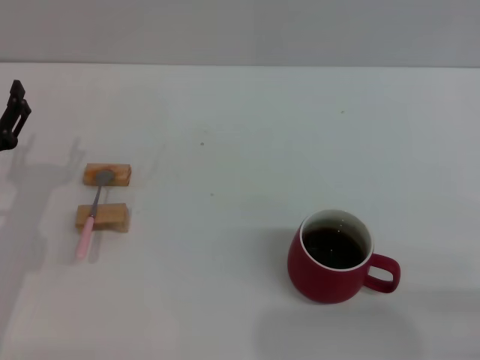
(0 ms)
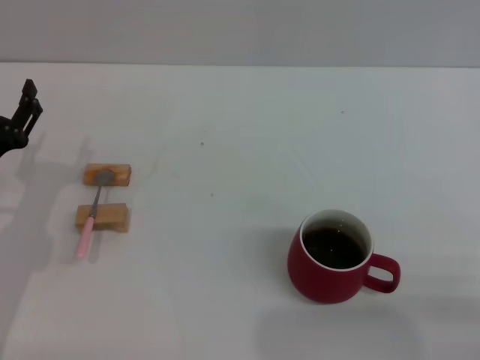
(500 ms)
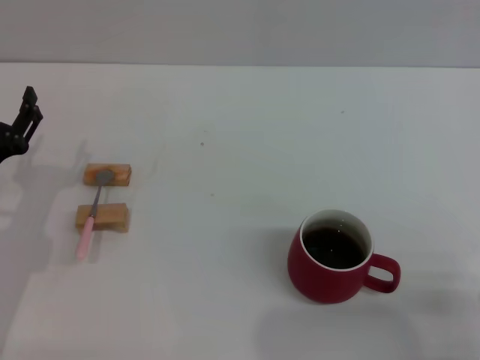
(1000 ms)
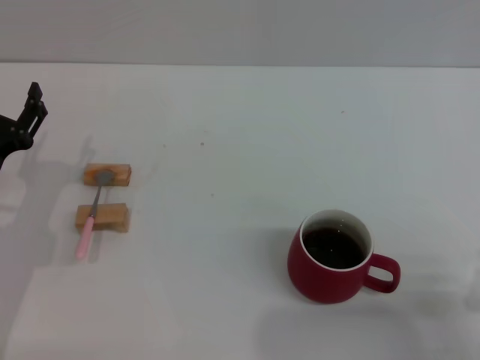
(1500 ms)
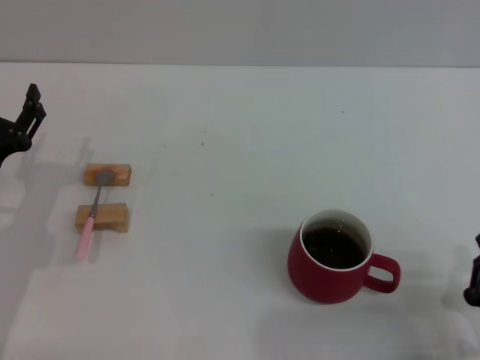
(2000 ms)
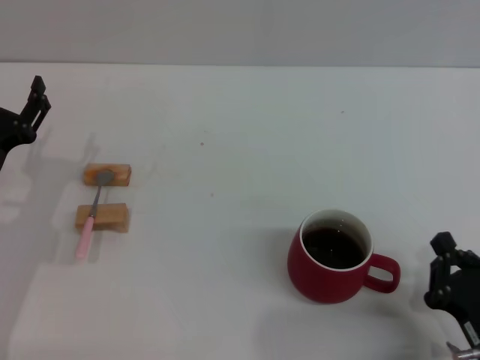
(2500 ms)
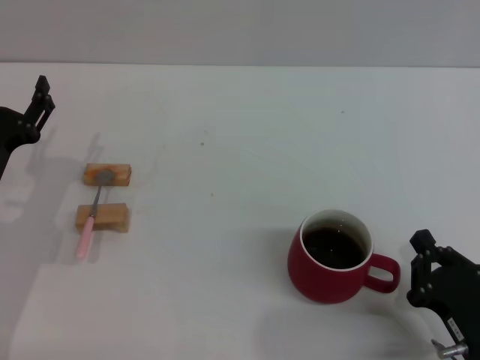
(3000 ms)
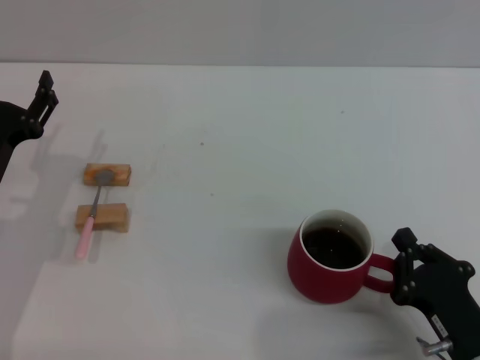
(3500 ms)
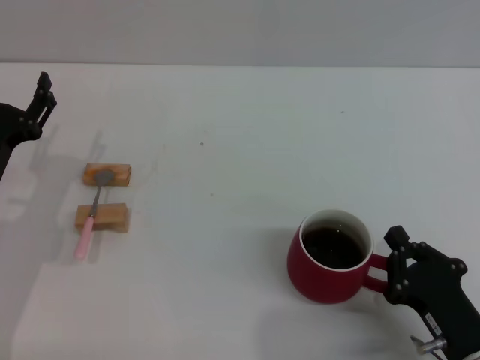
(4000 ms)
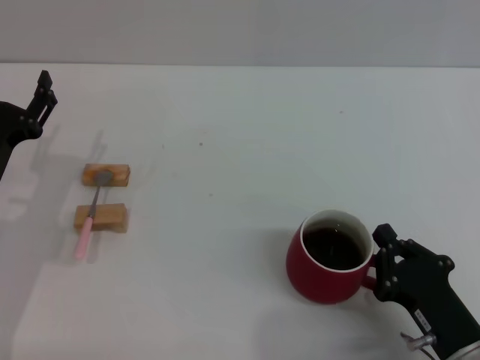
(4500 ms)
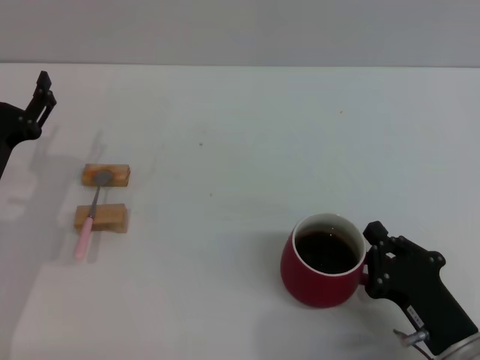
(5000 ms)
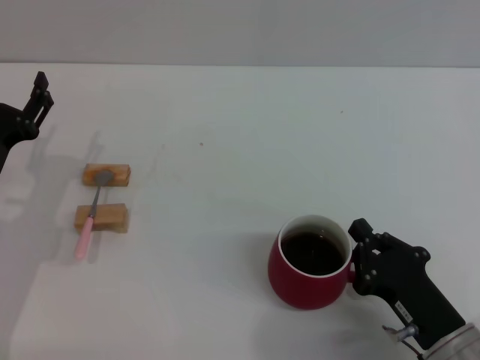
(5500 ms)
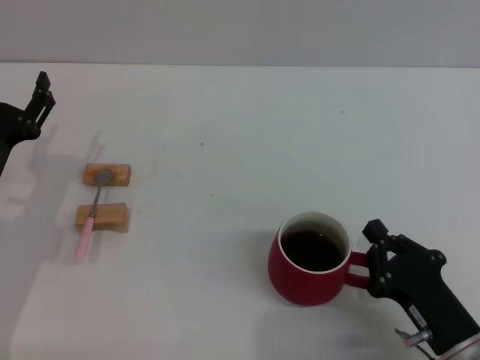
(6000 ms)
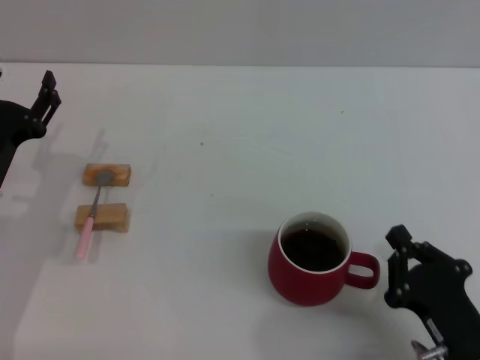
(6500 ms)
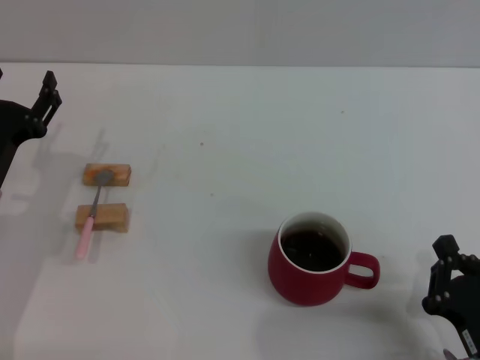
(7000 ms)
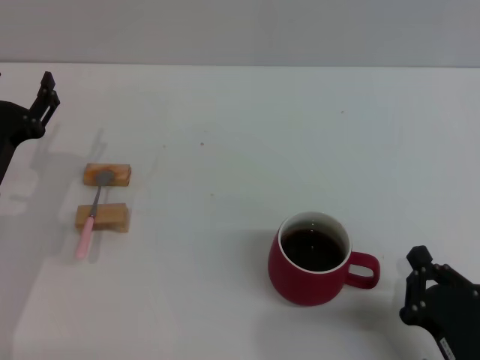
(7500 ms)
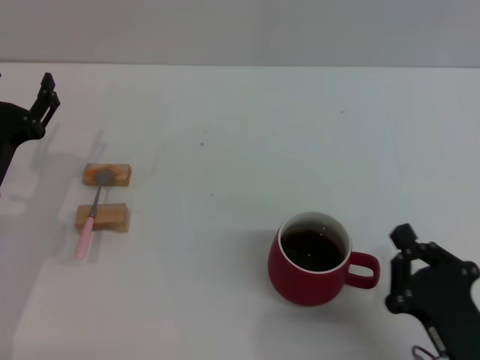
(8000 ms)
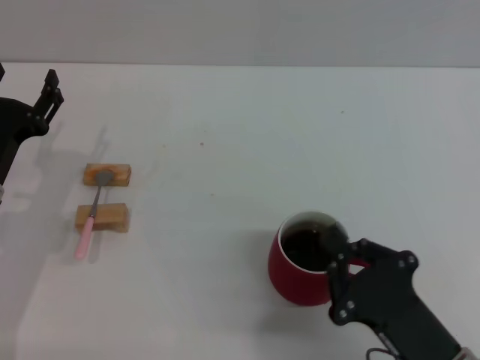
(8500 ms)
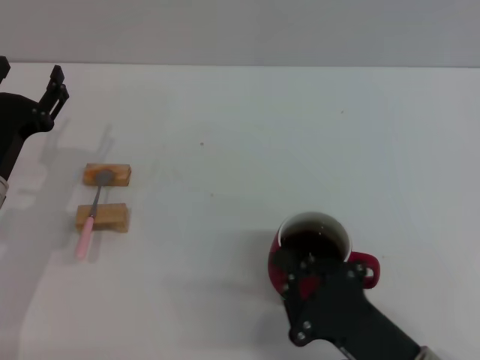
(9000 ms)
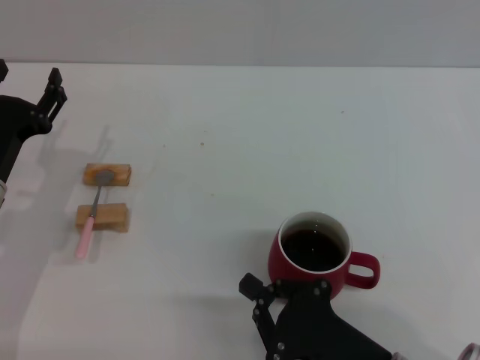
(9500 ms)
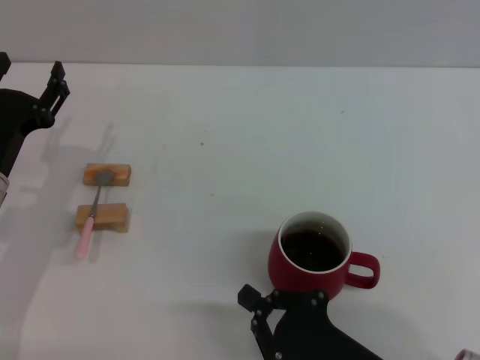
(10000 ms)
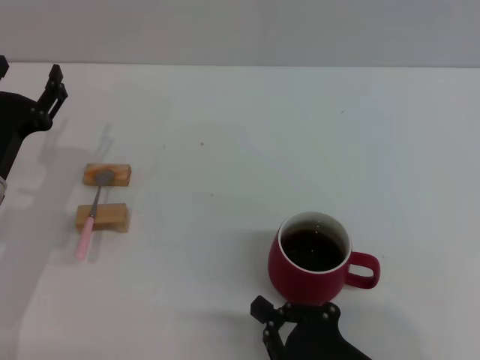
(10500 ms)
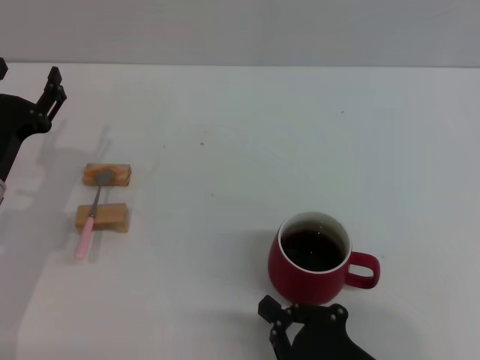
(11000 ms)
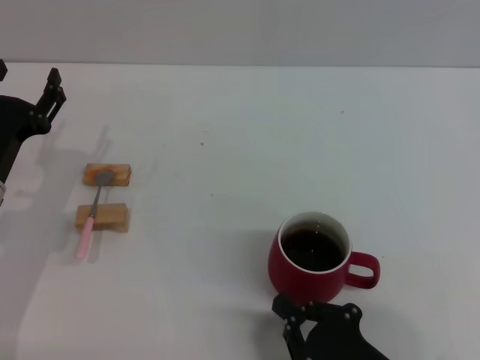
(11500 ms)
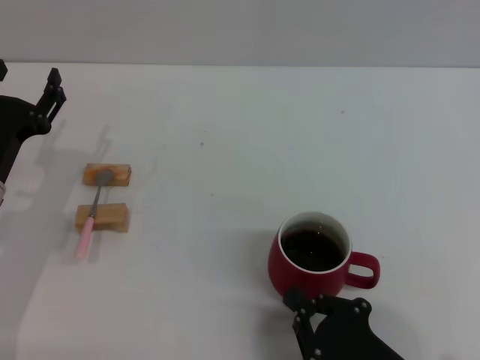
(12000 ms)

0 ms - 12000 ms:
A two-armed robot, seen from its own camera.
Task of the whole recording: Move the red cup to the center, lift the pink spoon, stir it three times in the cup, and put the spoon into the cup.
0 ms - 2000 ms: The right gripper moves to the left, about 5 cm, and closes up.
2000 ms - 4000 ms: The grippers stay close to where they were, moving slightly.
4000 ms - 8000 ms: The grippers move only a little.
8000 ms - 10000 ms: The right gripper shifts some 5 cm to the left.
10000 ms - 12000 ms: The grippers stay close to where they were, moving slightly.

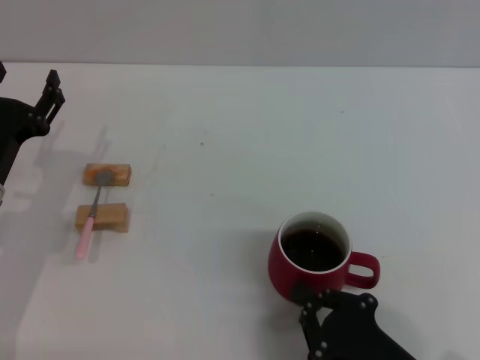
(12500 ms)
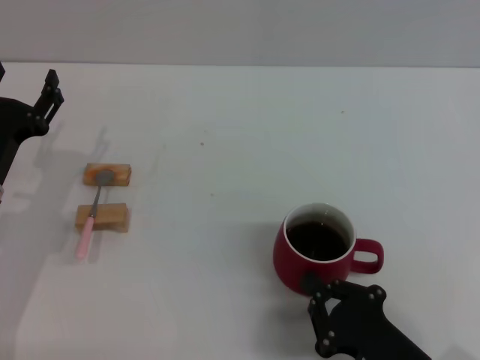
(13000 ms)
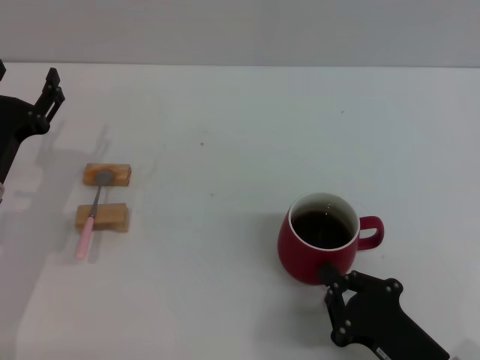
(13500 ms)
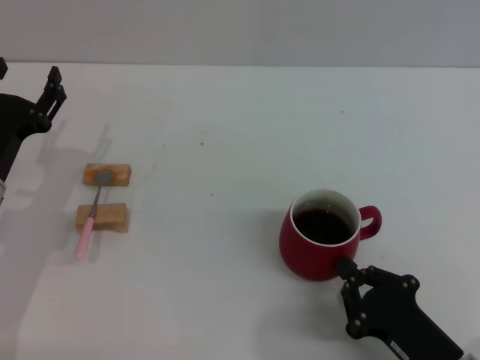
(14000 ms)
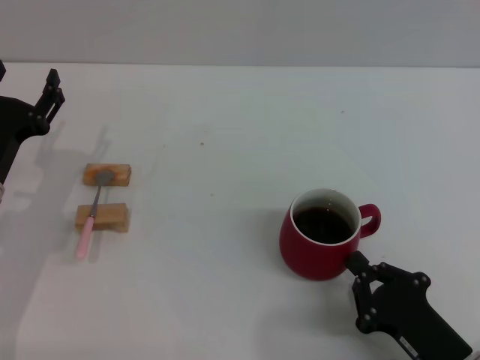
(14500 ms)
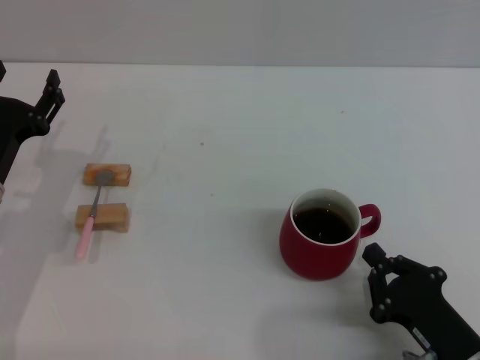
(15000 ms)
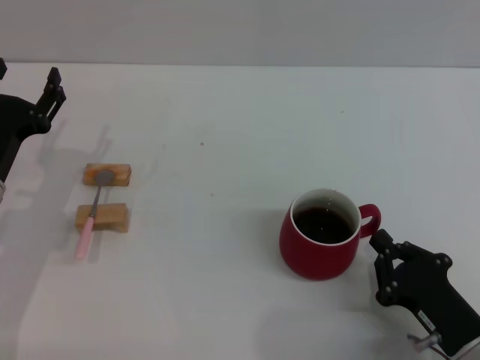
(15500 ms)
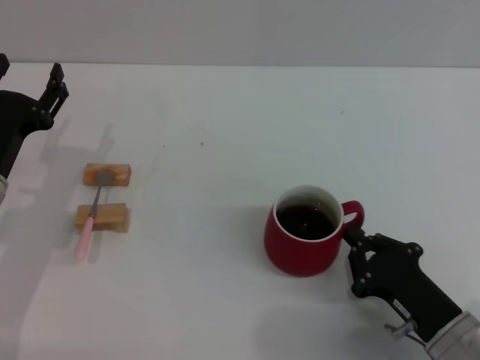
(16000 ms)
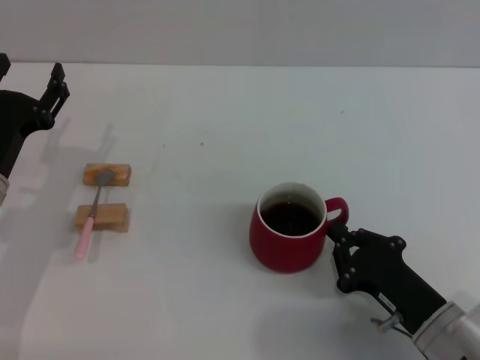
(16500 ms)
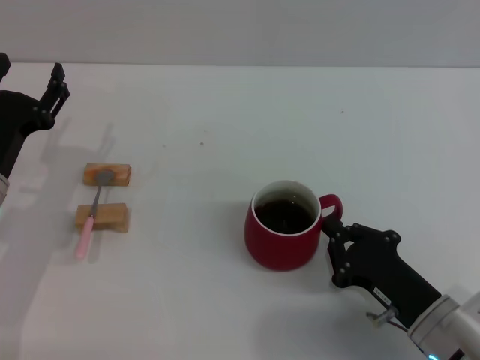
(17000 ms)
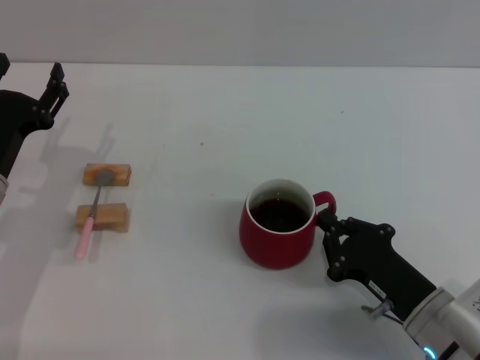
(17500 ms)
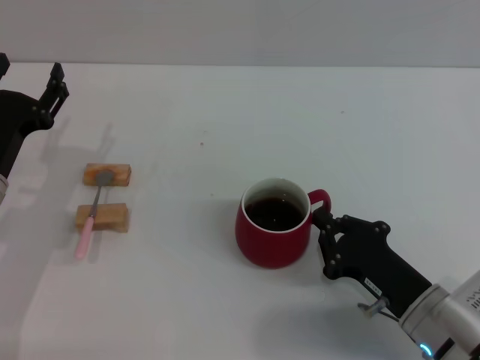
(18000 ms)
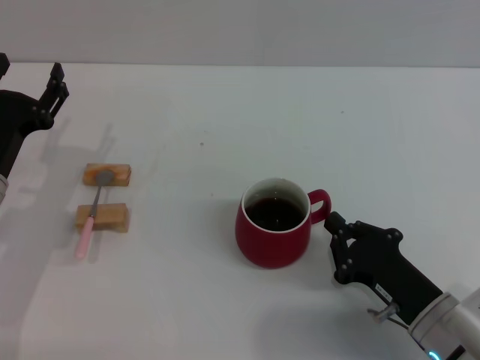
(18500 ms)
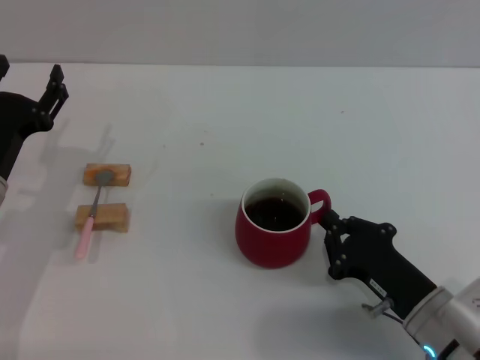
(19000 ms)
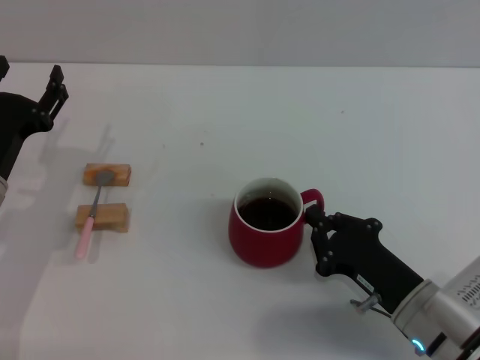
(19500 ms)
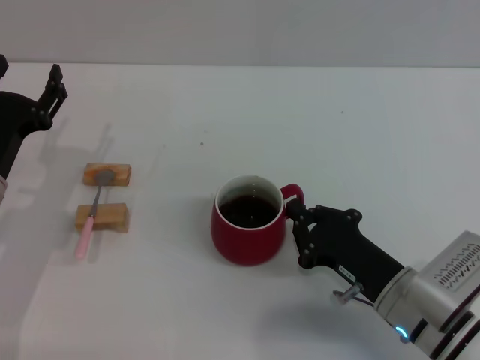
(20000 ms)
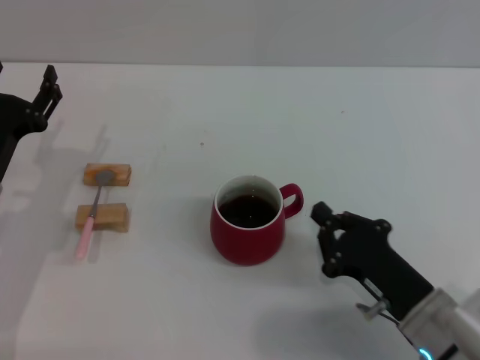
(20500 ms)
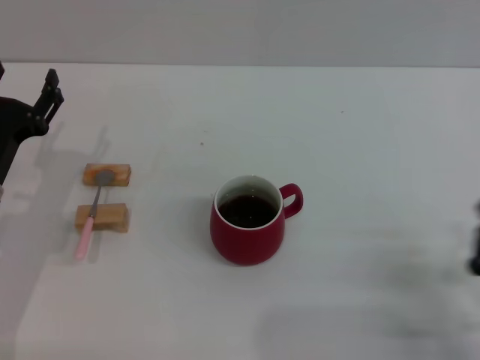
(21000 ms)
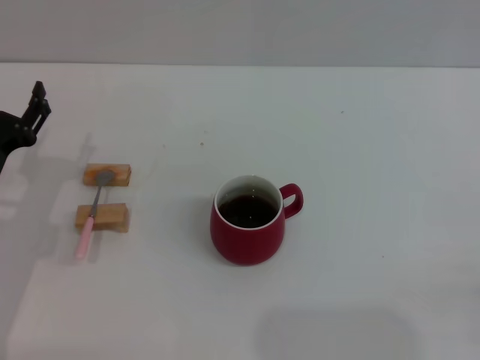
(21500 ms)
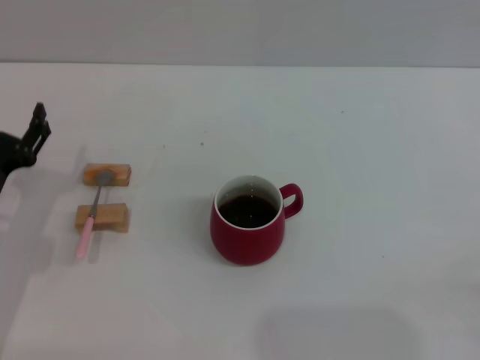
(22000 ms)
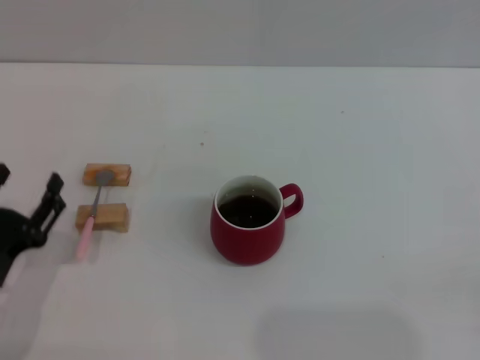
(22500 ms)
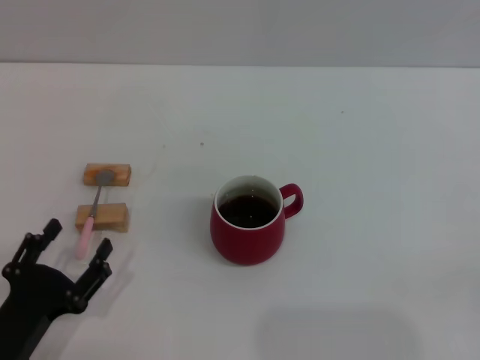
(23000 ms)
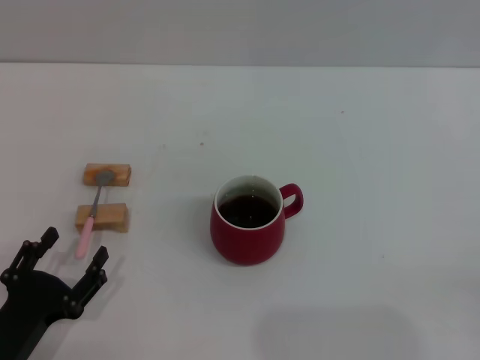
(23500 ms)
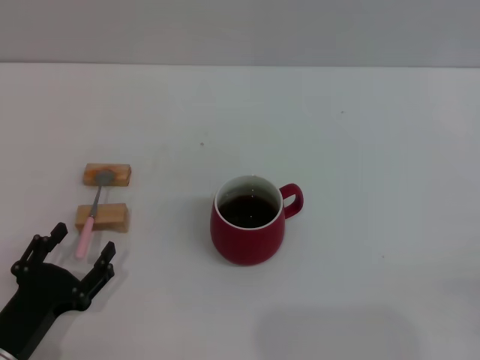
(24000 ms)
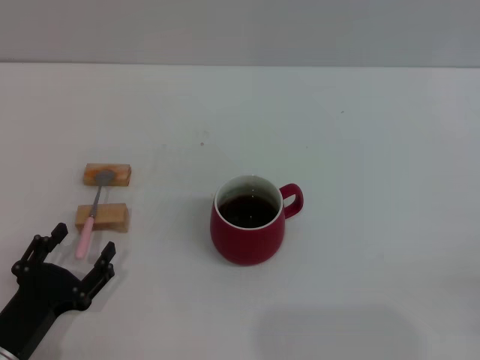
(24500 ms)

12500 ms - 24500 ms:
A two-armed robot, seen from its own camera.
Task of the whole recording: Move the red cup to the center, lift the pink spoon, stir it three times in the cup, and put the spoon into the cup.
Step, 12500 ms - 20000 ms: Move the cup with coffee to the center of view with the right gripper.
12500 ms - 14500 ms: The grippers make only small movements.
14500 ms - 16500 ms: There are only small adjustments of the grippers.
16500 ms - 20500 ms: The grippers make only small movements.
20500 ms - 22500 ms: The right gripper travels to the right and backward by about 15 cm, and opens, while the left gripper moves backward, some 10 cm.
22500 ms - 24500 ms: The grippers stay close to where they were, moving slightly.

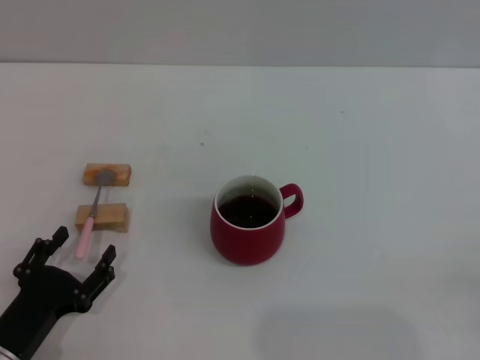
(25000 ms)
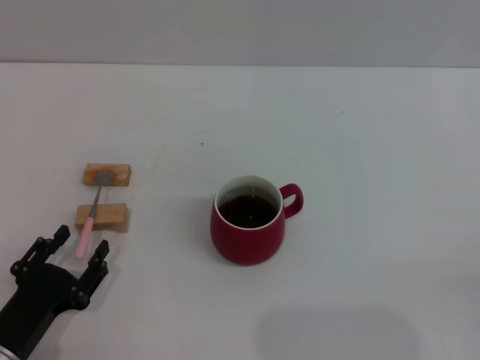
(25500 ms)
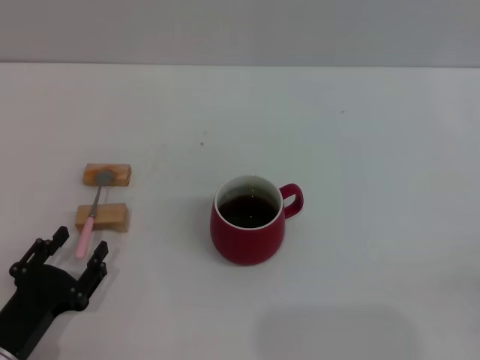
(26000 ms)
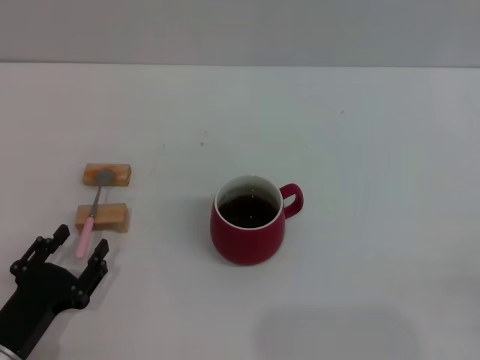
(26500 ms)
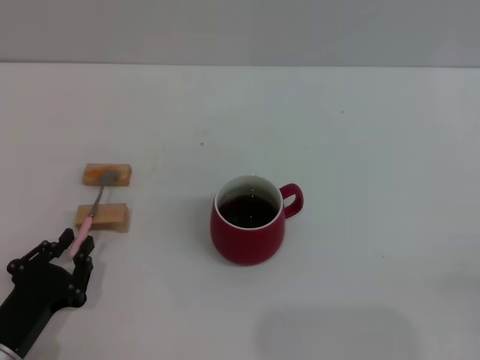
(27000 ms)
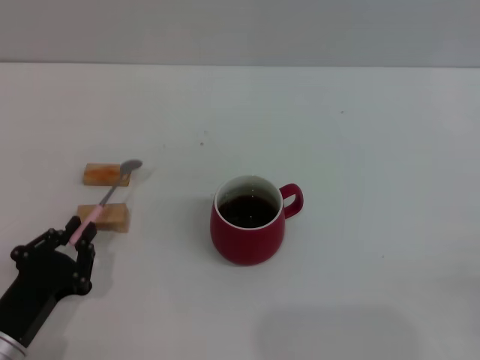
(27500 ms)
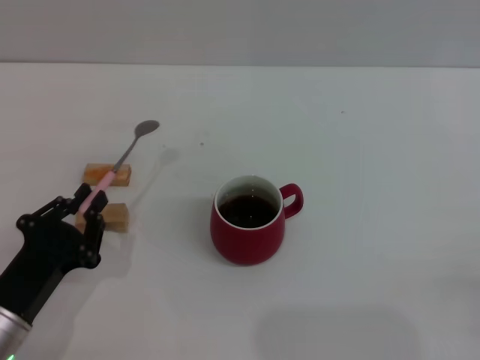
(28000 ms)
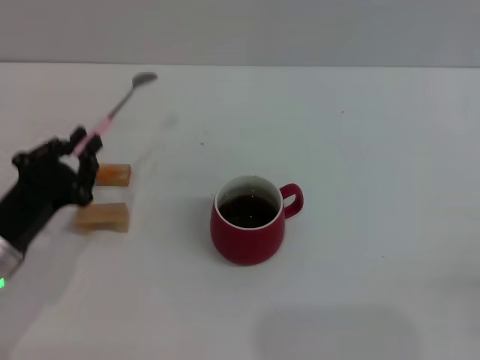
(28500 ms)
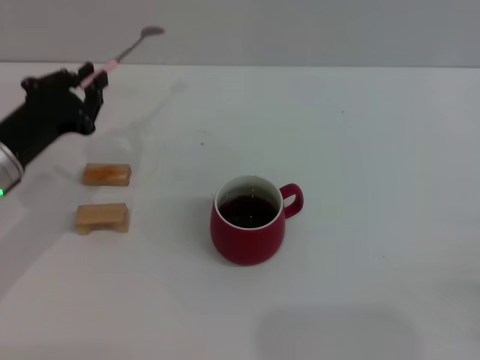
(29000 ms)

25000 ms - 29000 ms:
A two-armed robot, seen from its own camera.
Task of the whole recording: Move the red cup to the center, lift the pink spoon, stir it three times in the cup, and put the spoon into the cup.
Step, 25000 ms - 28500 ms: Pick up the spoon with the left gripper.
25000 ms - 27000 ms: The left gripper closes up.
27000 ms - 29000 ms: The left gripper shifts about 20 cm forward and upward, and closes.
